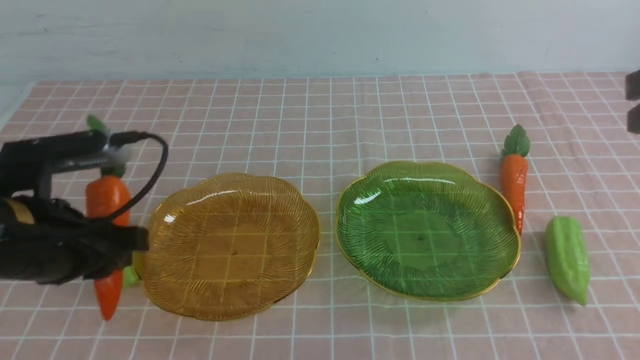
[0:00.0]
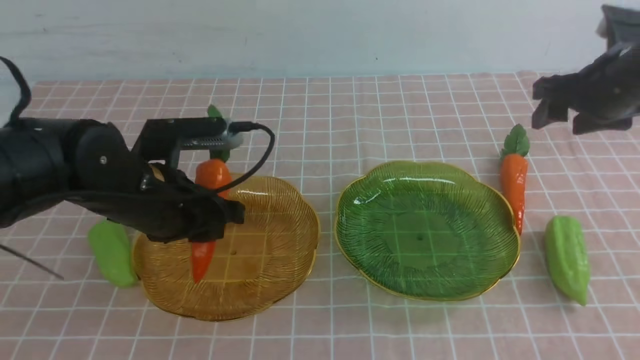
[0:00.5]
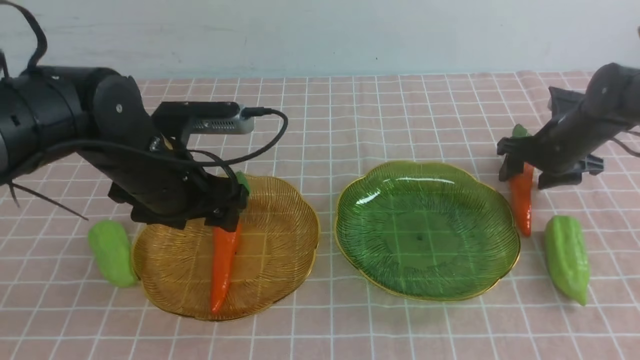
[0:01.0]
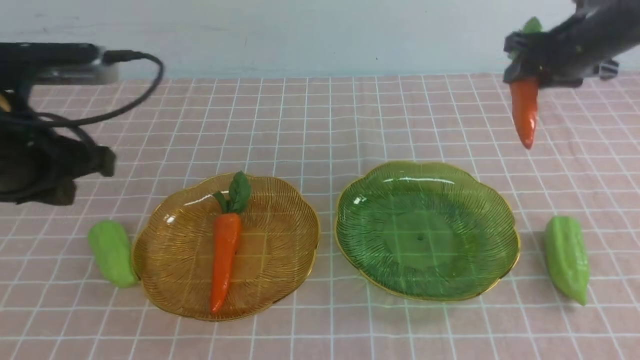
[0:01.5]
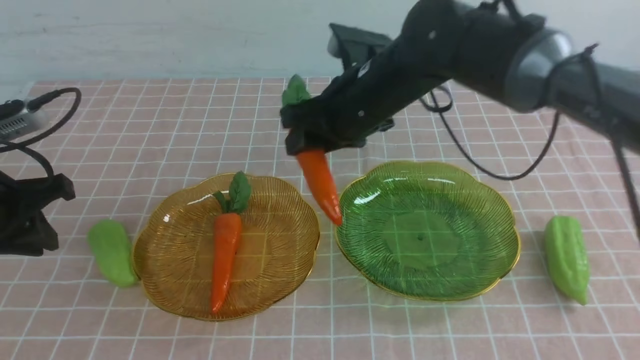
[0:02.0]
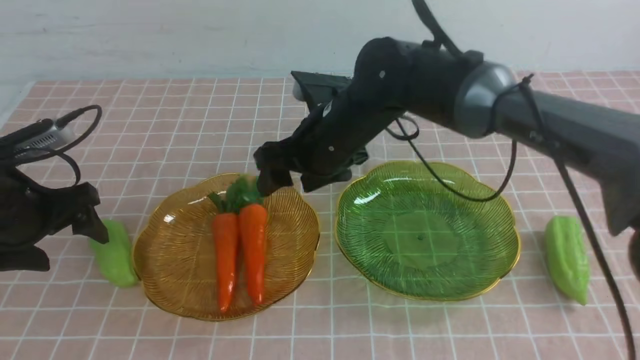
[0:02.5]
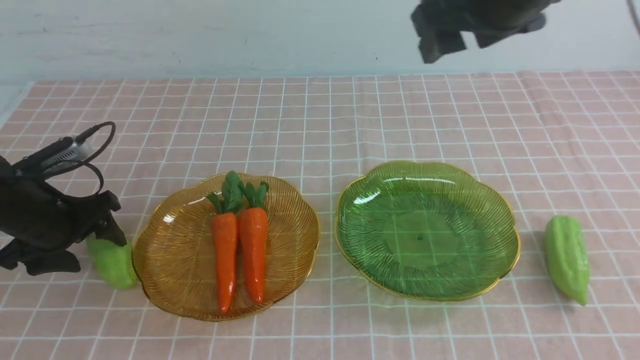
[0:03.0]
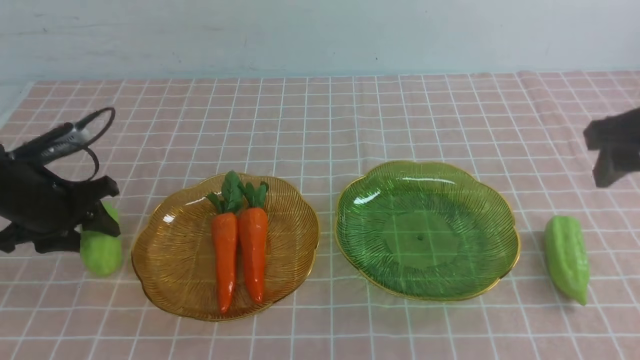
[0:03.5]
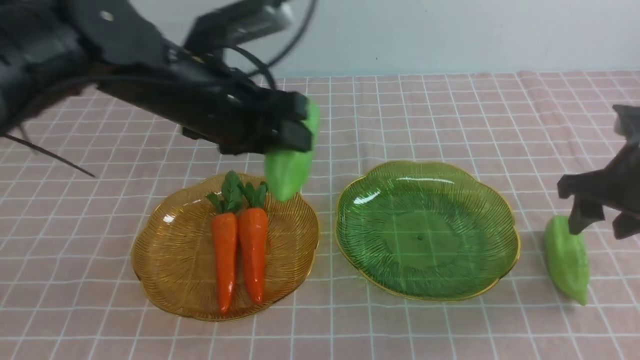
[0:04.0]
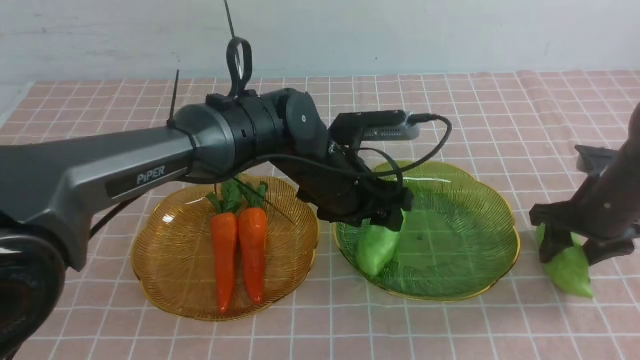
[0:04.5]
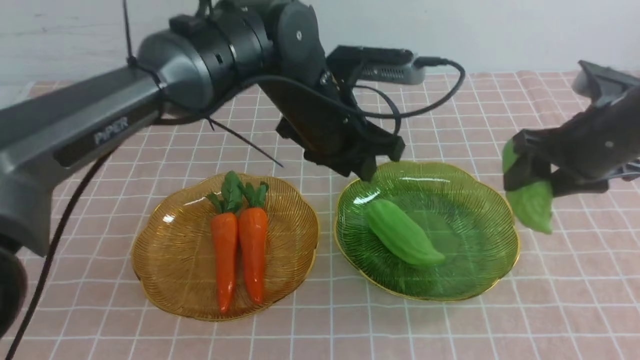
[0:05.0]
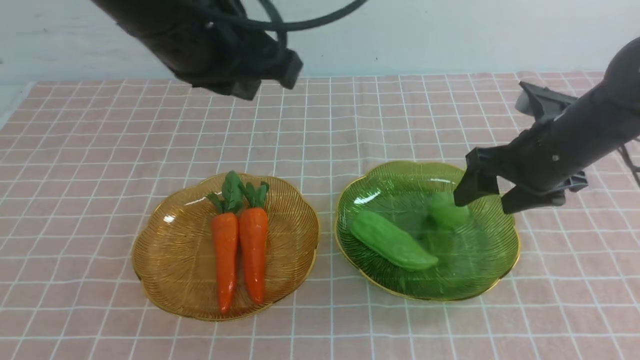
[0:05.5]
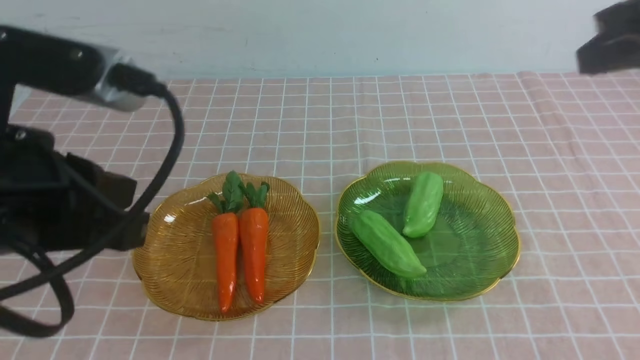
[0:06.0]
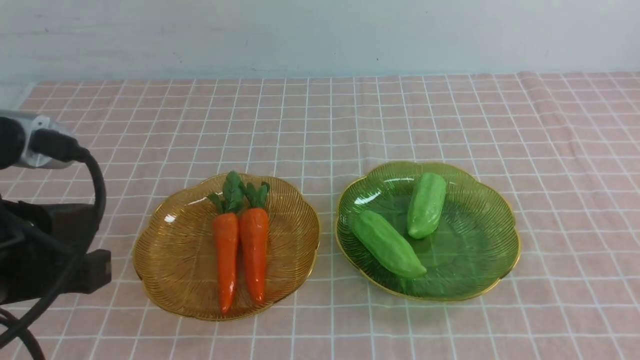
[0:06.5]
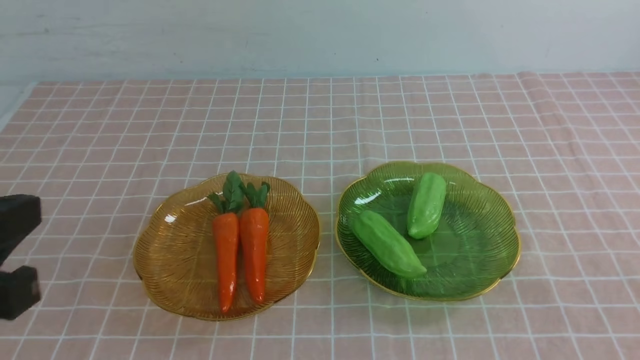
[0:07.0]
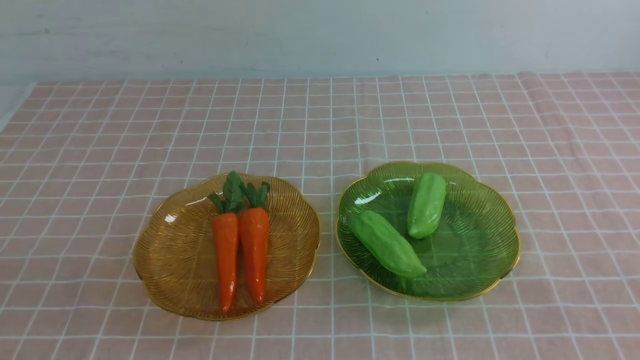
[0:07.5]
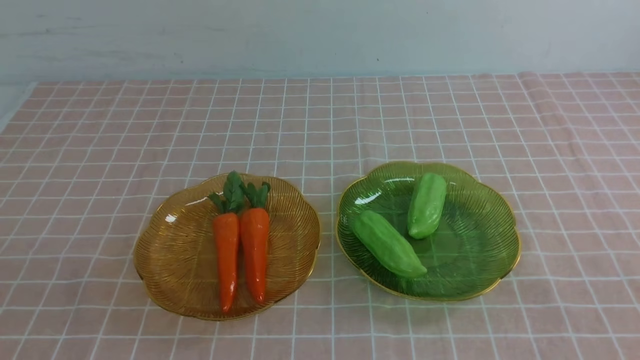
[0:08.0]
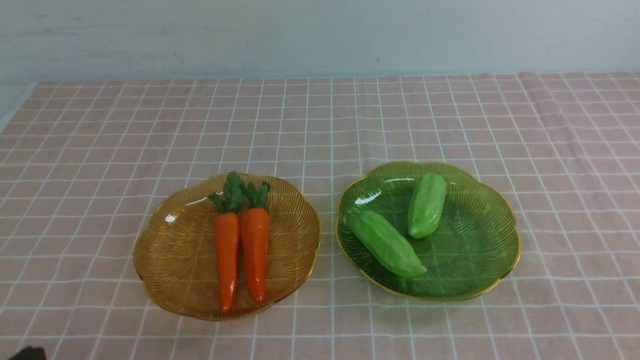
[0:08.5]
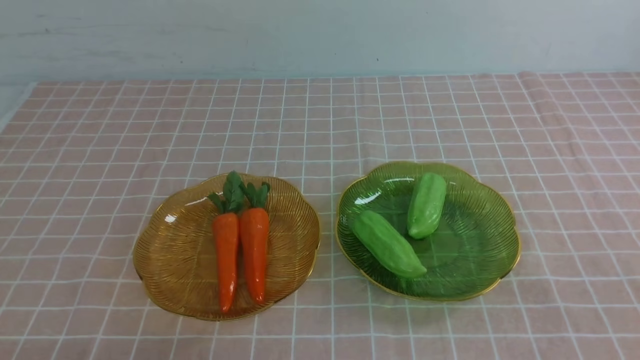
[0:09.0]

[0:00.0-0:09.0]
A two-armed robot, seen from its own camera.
Step, 0:01.0 to 0:02.0: use the right arm to grab a carrot and put it into the left plate.
Step, 0:03.0 to 0:04.5: use the left arm to grab a chayote and put it into the right plate.
Step, 0:05.0 to 0:05.5: use the right arm to grab a chayote and put it into the right plate.
0:00.0 to 0:02.0: The right gripper heads to the left and forward, covering some 25 cm, and opens. The left gripper heads to the left, covering some 10 cm.
0:02.0 to 0:04.5: The two grippers go roughly 25 cm to the right. The left gripper opens, then closes once more.
0:04.5 to 0:07.0: The left gripper goes roughly 35 cm backward and to the left, and closes its fingers. The right gripper moves backward, approximately 35 cm, and closes up.
0:07.0 to 0:09.0: The left gripper heads downward, covering some 15 cm.

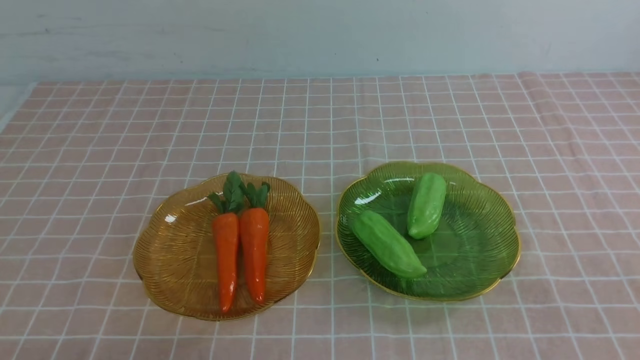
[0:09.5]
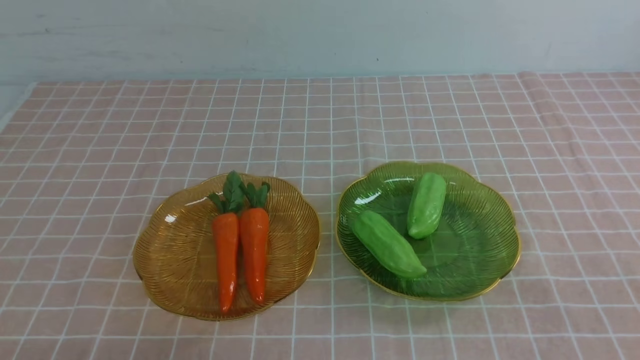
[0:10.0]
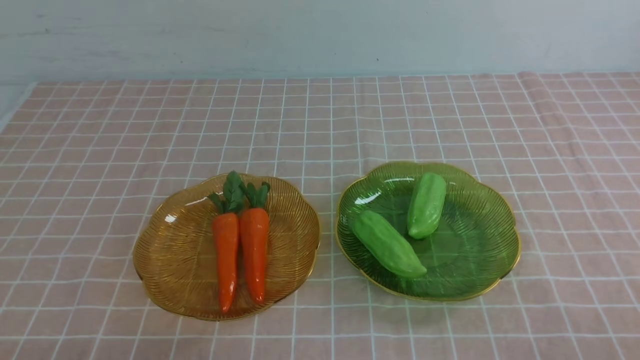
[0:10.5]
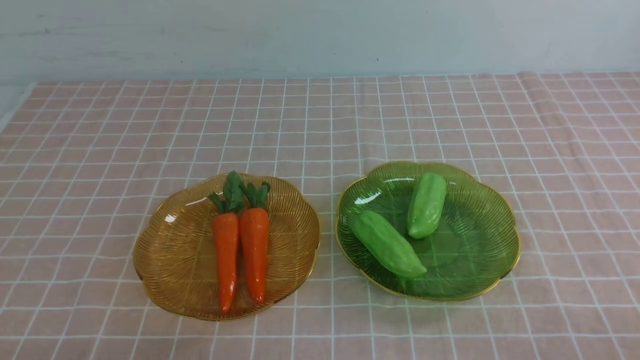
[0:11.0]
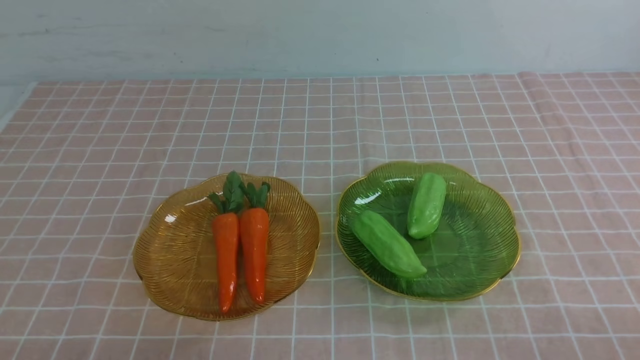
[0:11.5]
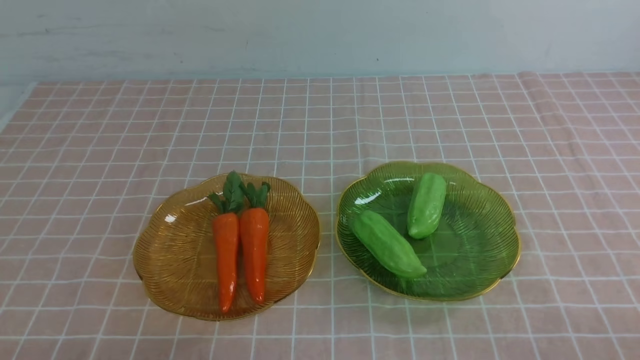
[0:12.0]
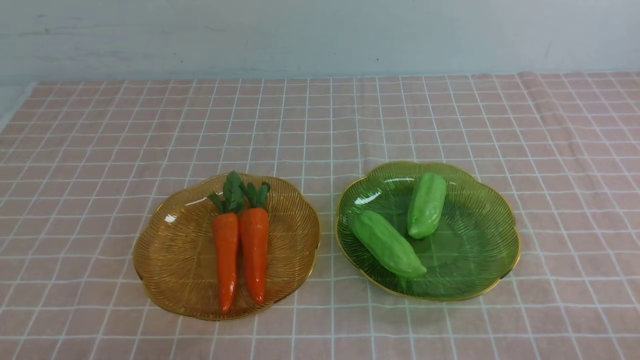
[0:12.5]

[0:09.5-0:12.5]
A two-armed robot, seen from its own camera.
0:11.0 to 0:12.5: Both grippers stay put.

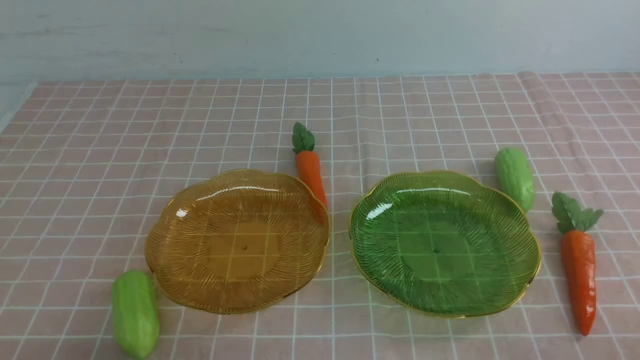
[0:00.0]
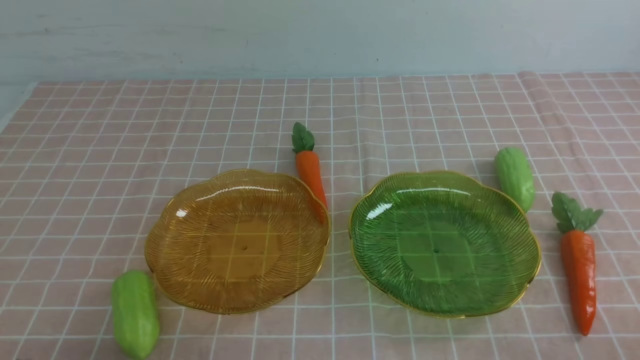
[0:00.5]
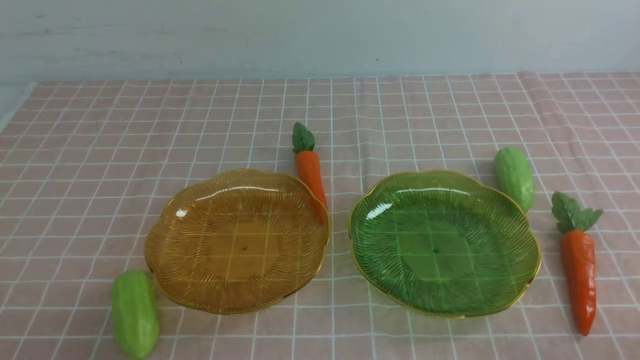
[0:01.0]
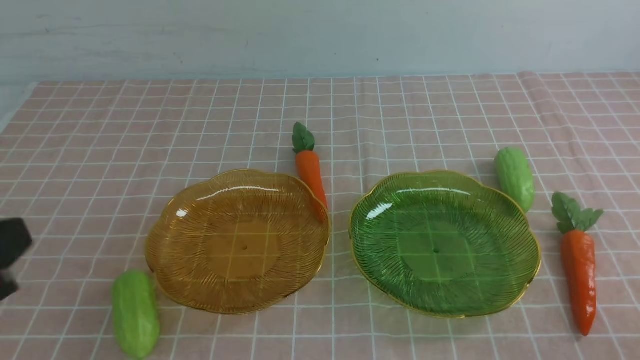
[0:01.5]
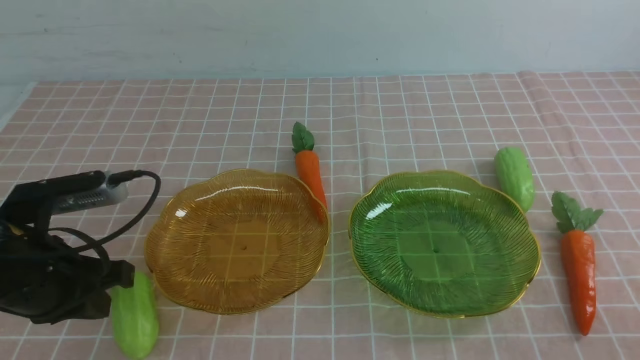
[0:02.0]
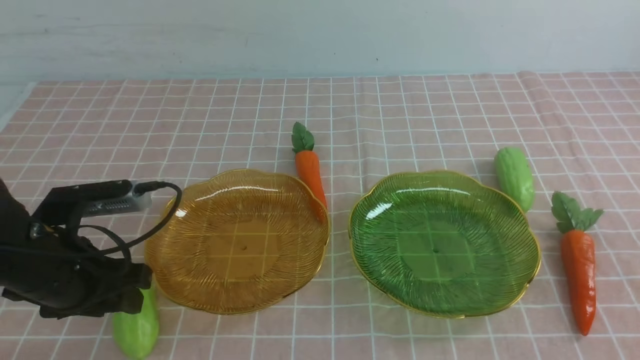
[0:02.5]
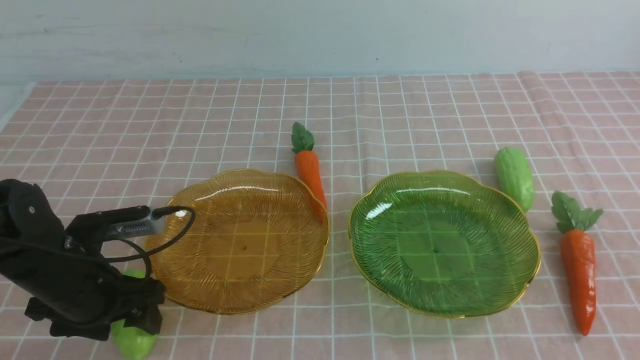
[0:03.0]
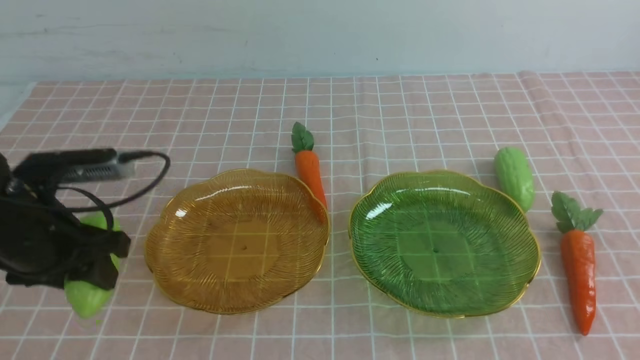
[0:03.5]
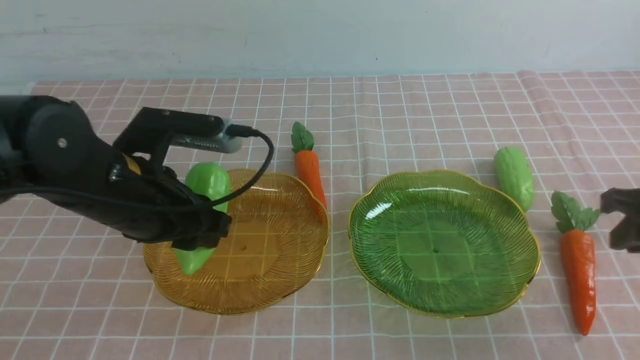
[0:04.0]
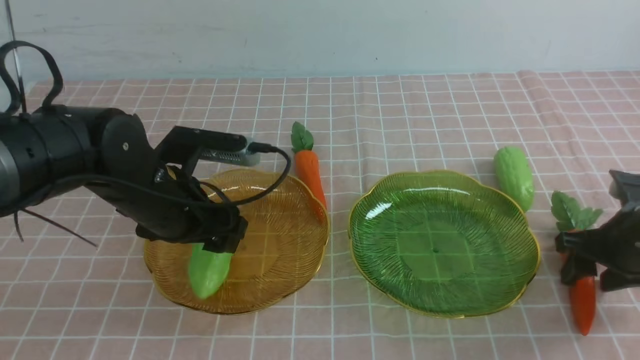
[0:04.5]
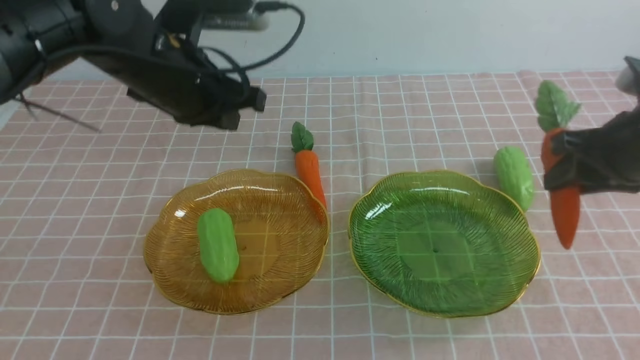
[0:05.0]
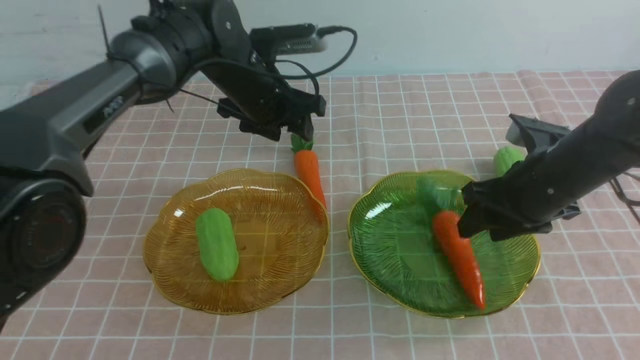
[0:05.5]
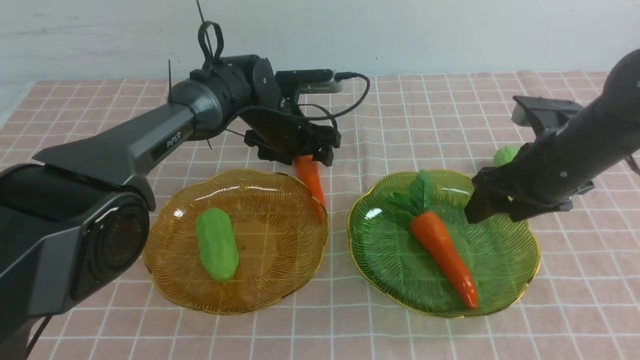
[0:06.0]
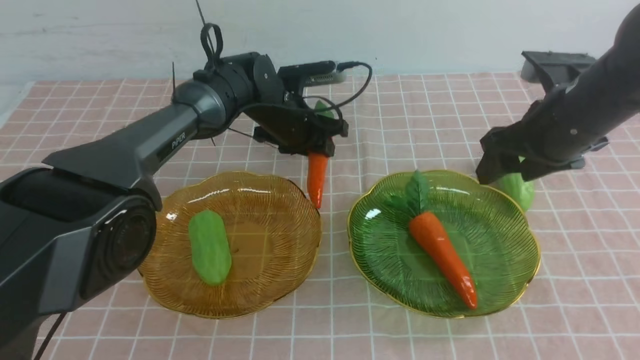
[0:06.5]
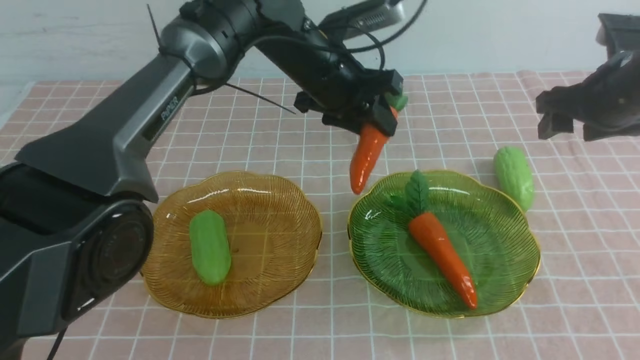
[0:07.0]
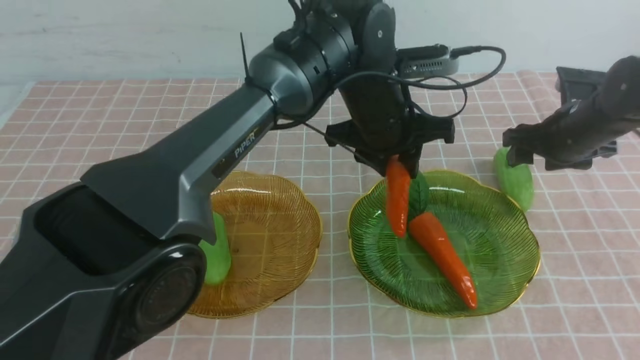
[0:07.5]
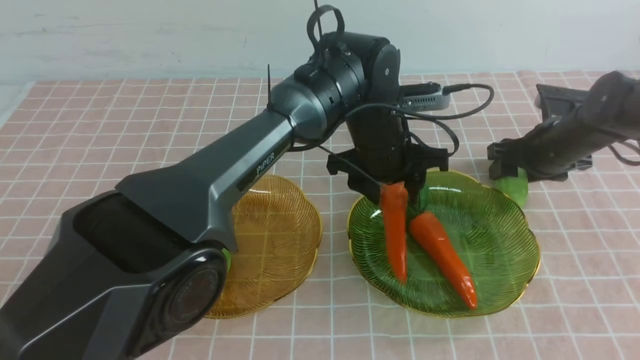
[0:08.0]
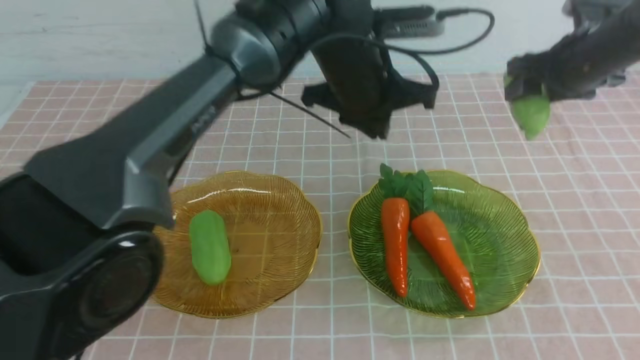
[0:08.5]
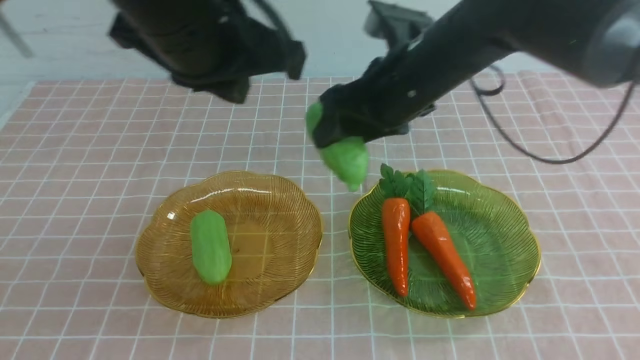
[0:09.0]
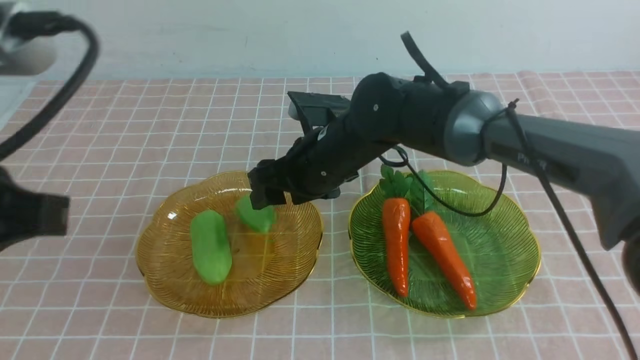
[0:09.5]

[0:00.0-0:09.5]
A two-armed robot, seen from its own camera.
Step, 0:00.0 to 0:04.5: use the left arm to grab a chayote and put it into the left plate.
Step, 0:05.0 to 0:08.0: use the right arm to grab a carrot and put it into the right plate.
0:00.0 to 0:02.0: The left gripper goes some 20 cm forward and upward.
0:02.0 to 0:04.0: The right gripper shifts some 25 cm forward, and opens up. Meanwhile the left gripper goes roughly 10 cm to the right and forward, goes downward and returns, roughly 5 cm each way, and opens up.
0:04.0 to 0:05.5: The left gripper travels forward and to the right by roughly 20 cm, and closes and opens again; the right gripper moves to the left, roughly 10 cm.
0:05.5 to 0:07.5: The right gripper goes roughly 15 cm forward and to the right, while the left gripper shifts about 15 cm to the right and backward, and closes.
0:07.5 to 0:09.5: The right gripper shifts approximately 30 cm to the left; the left gripper heads backward, to the left and upward, covering roughly 40 cm, and closes.
